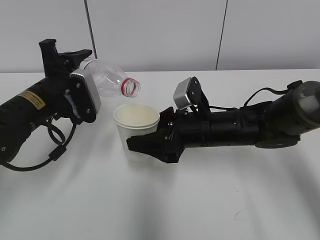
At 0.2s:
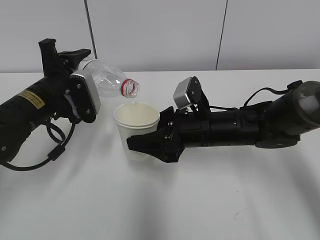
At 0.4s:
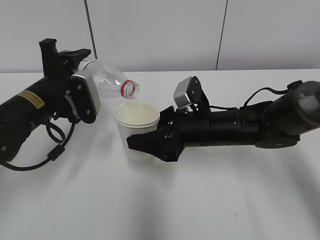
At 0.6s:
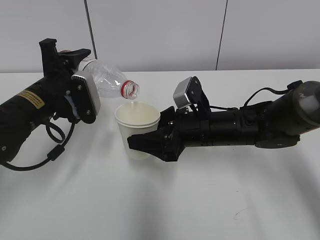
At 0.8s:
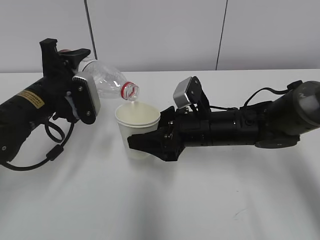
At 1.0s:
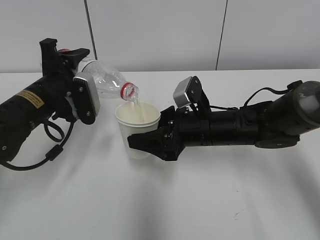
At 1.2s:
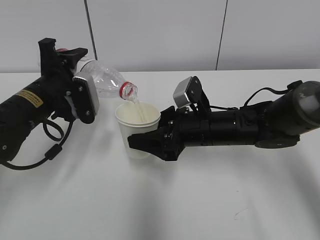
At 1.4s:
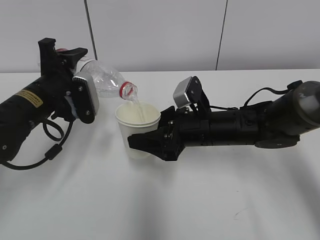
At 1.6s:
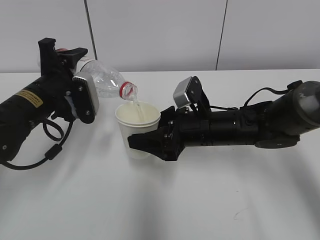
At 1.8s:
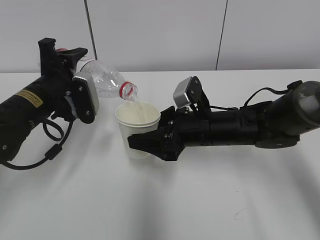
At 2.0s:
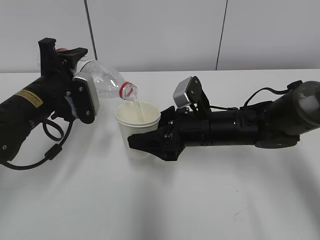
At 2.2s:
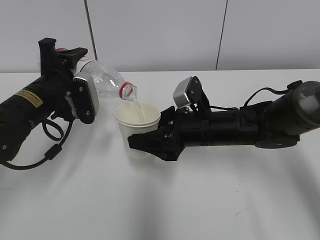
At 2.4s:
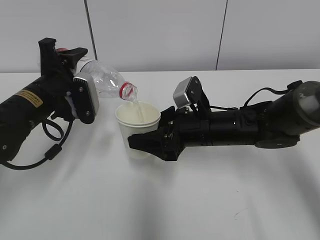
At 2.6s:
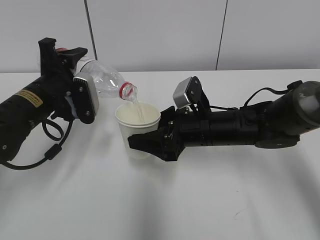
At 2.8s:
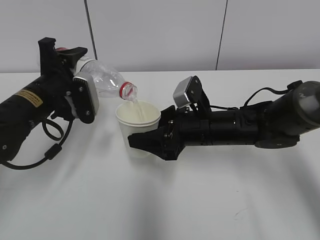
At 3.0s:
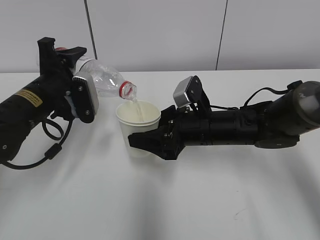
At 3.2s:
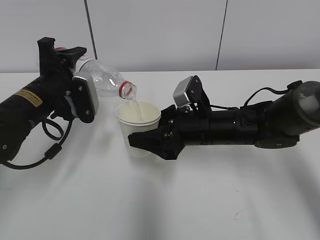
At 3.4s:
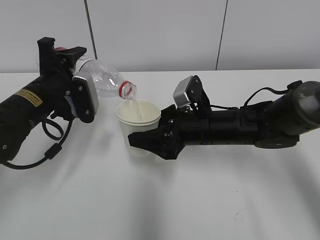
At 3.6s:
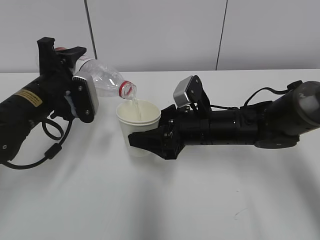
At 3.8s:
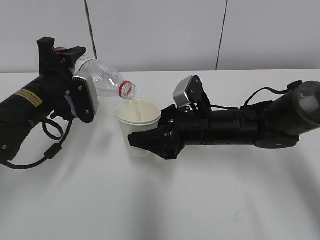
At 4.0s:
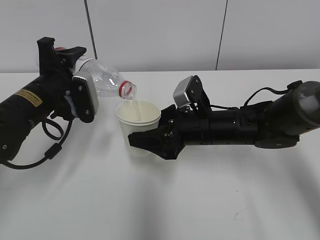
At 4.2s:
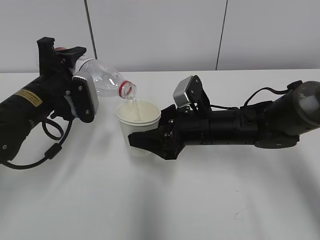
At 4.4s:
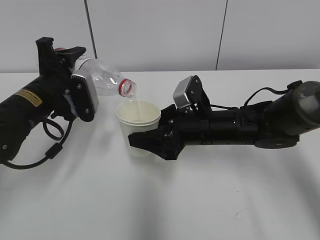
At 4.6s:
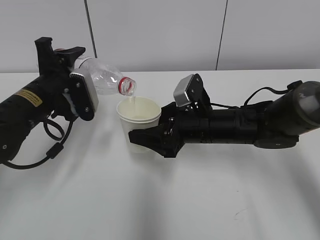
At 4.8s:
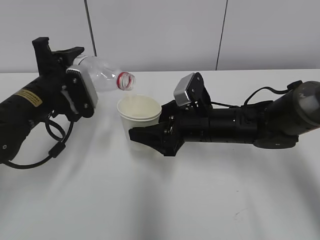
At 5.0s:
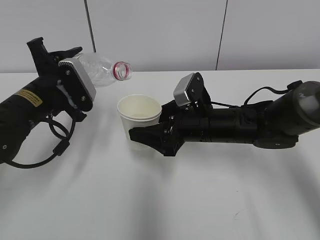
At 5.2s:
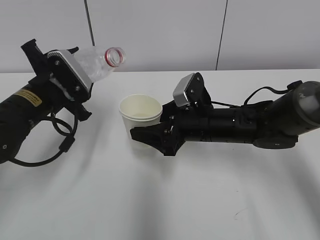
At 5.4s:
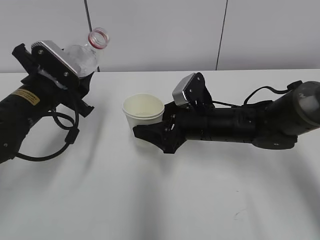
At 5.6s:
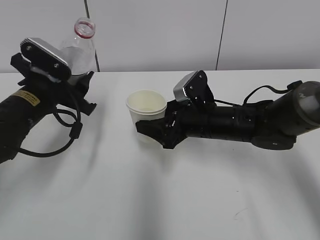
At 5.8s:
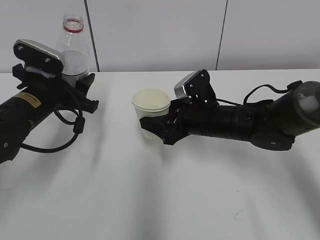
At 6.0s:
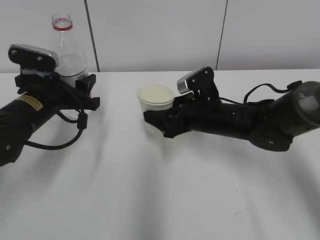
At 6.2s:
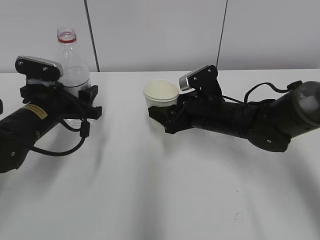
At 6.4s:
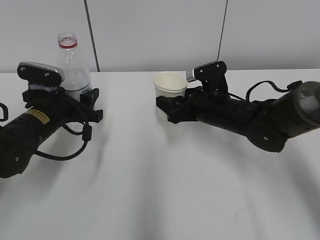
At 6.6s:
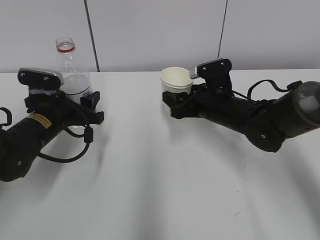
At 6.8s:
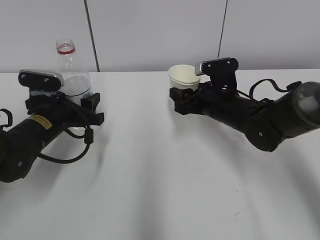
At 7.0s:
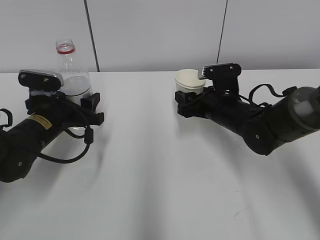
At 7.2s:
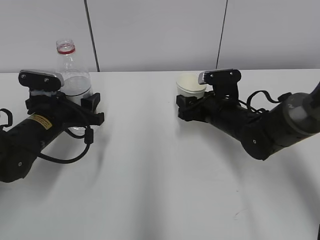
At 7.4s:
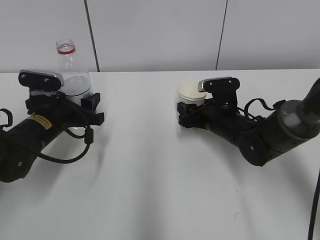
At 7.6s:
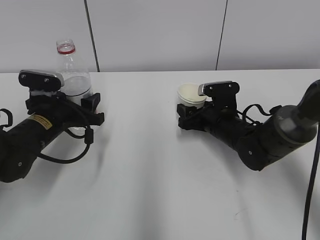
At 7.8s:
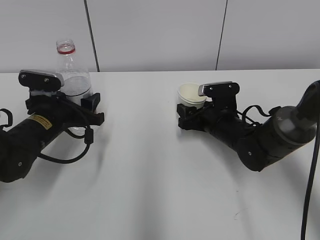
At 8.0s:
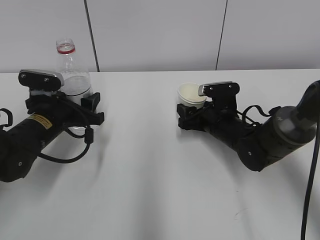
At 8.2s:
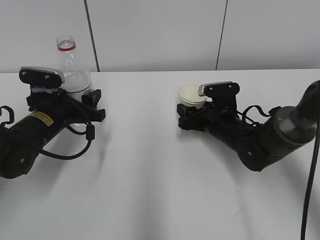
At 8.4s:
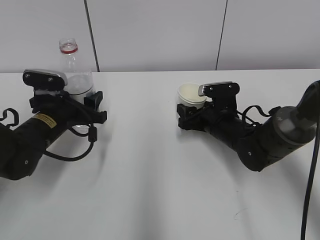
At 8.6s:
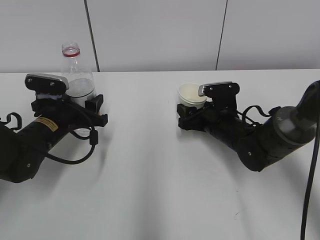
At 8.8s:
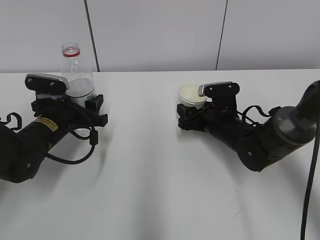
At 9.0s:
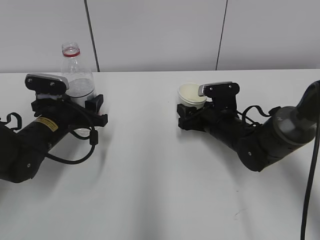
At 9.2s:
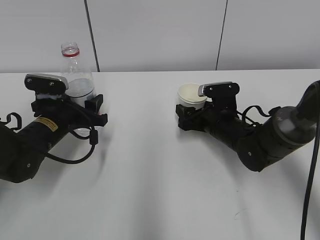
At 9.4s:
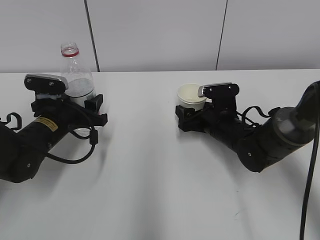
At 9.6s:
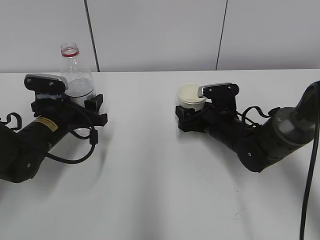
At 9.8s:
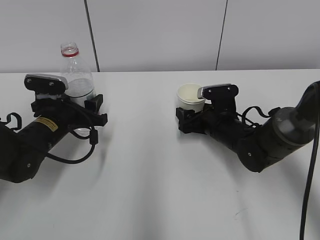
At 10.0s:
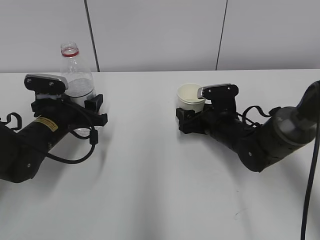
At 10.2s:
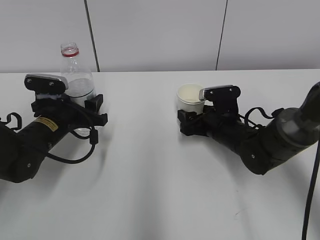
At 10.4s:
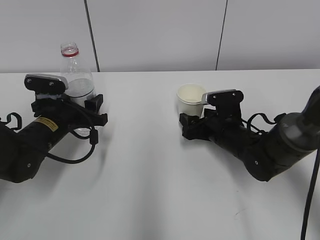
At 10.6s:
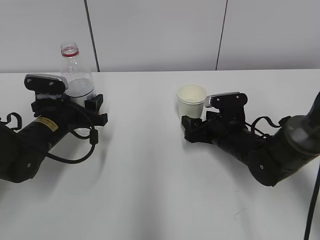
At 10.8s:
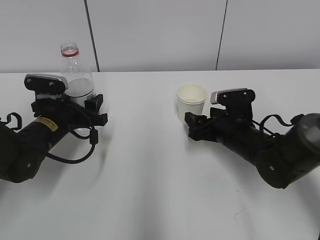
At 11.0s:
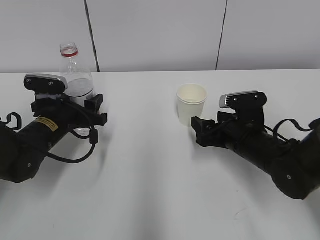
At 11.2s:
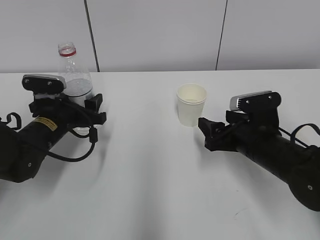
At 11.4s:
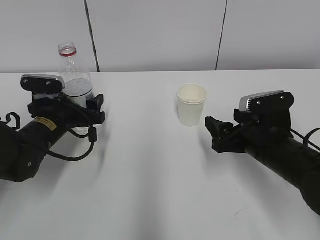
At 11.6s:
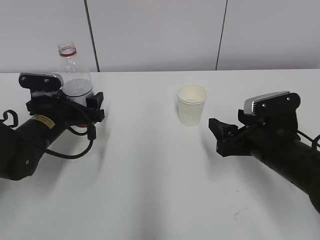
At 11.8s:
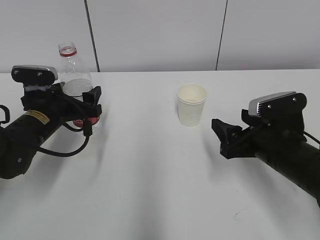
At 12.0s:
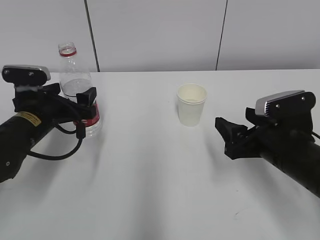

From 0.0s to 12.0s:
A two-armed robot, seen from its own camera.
Step, from 0.0s to 1.8s: Fill water with the right hand.
Step, from 0.0s to 1.8s: Pour water with the left hand.
Step, from 3.2s to 6.2s: Place the paper cup with the right hand.
From 0.0s to 1.6s: There are only small adjustments of the grippers.
From 1.6s to 4.4s: Both grippers stay about where they are.
From 6.0s to 7.6s: The right gripper goes some 5 cm downward.
From 7.6s to 9.0s: The grippers move only a little.
From 9.0s to 10.4s: The right gripper opens.
From 10.4s to 12.0s: The right gripper heads backward and upward, covering about 15 cm. Meanwhile the left gripper opens its fingers.

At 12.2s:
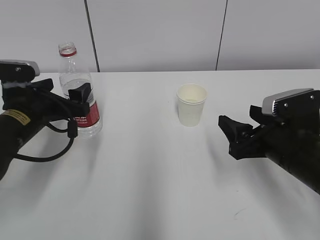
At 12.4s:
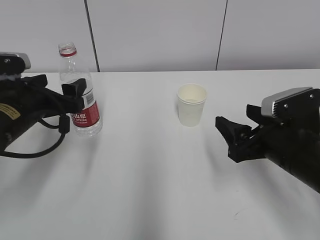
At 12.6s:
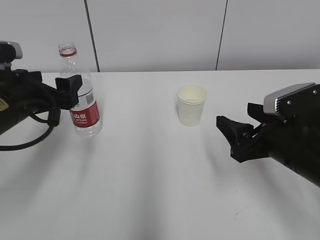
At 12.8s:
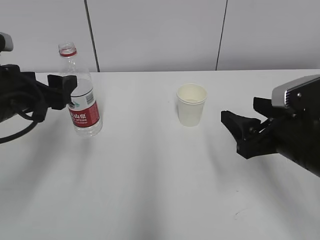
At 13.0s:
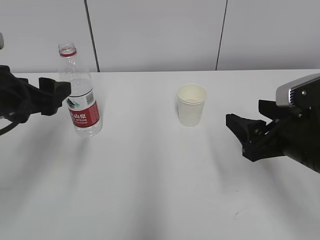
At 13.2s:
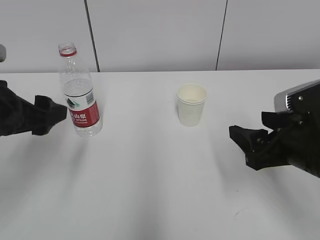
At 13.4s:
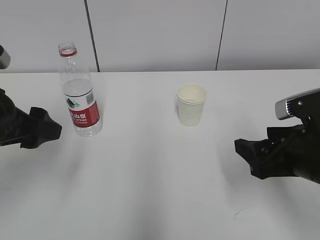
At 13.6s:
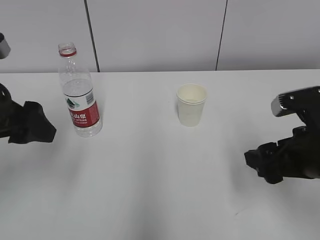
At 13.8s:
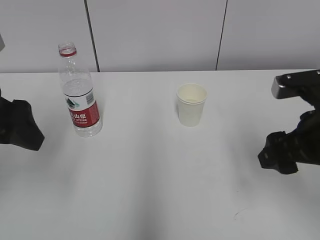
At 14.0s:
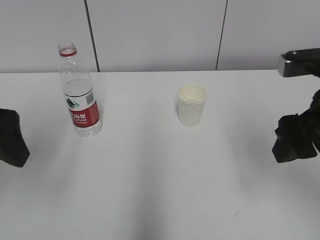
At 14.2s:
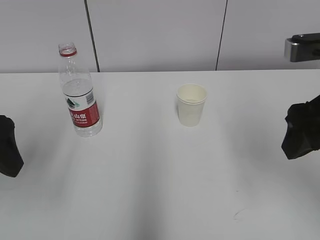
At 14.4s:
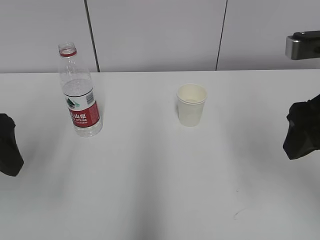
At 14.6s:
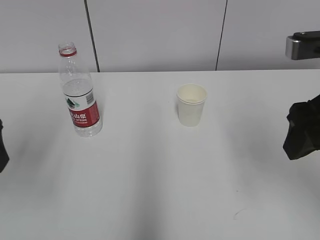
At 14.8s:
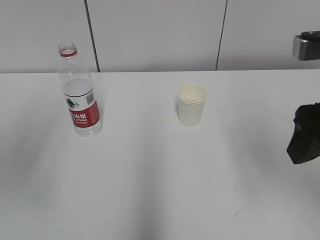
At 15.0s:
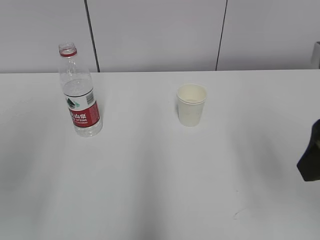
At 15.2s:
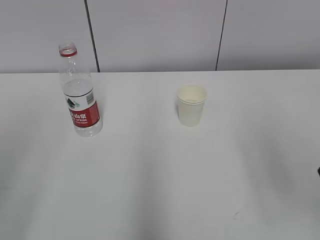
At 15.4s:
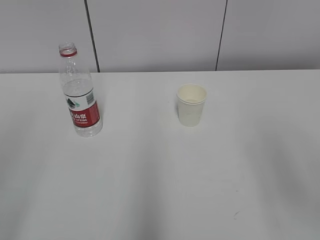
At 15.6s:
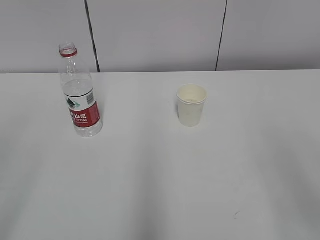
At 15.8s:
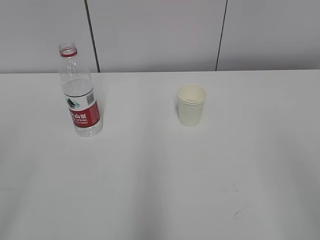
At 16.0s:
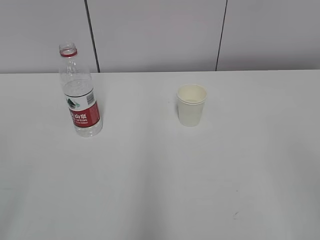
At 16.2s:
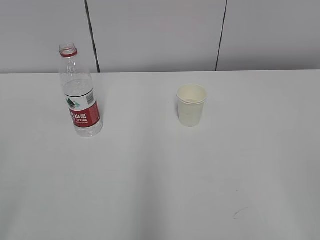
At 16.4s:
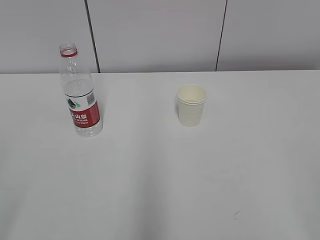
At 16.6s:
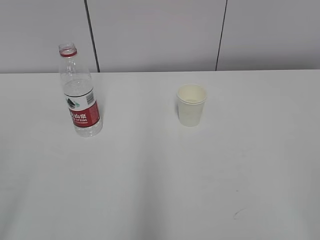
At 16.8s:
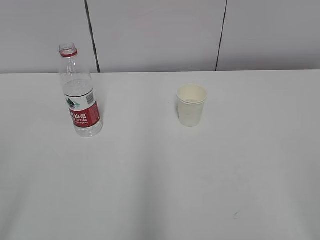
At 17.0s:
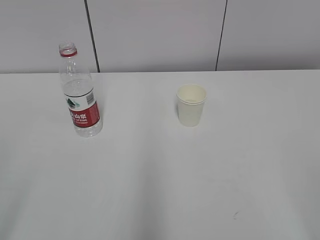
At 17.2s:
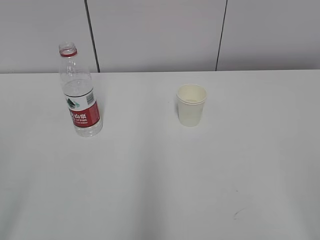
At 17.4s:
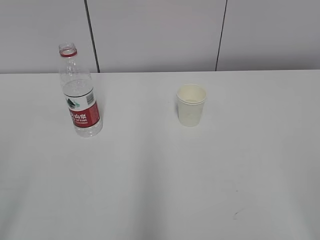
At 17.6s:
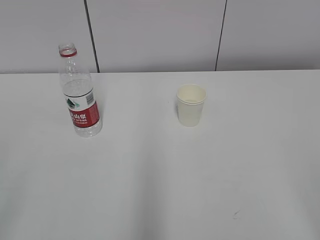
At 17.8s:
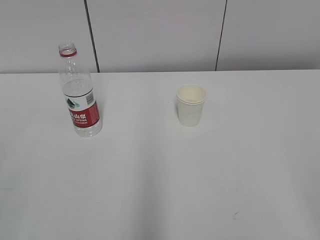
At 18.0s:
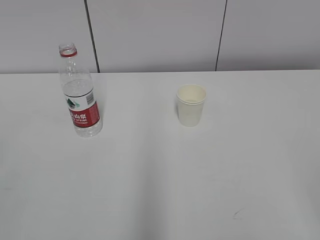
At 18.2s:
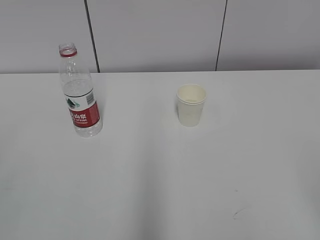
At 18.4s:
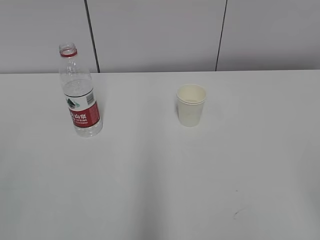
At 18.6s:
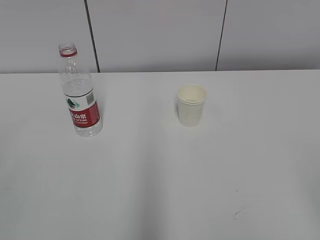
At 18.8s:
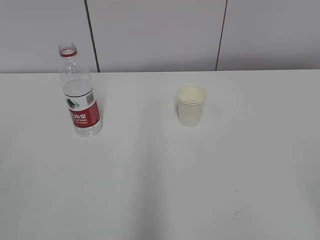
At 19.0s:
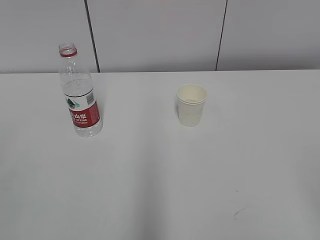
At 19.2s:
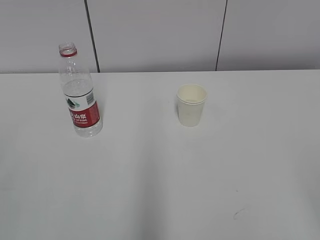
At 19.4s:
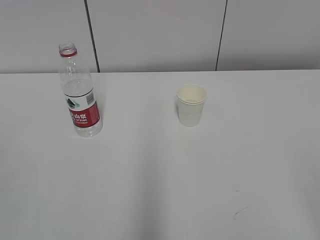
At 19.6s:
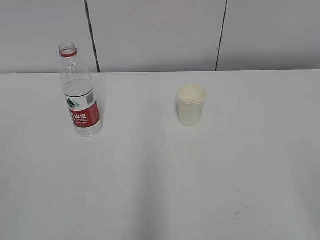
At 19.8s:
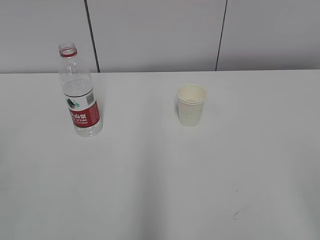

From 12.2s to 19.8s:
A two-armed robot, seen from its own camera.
From 12.2s to 13.8s: The right gripper shifts approximately 10 cm upward, while the left gripper travels upward and backward by some 15 cm.
From 13.8s to 15.2s: The right gripper heads upward and backward, covering approximately 10 cm. The left gripper shifts some 15 cm backward and upward.
From 15.2s to 16.8s: The right gripper heads backward and to the right, covering some 15 cm.

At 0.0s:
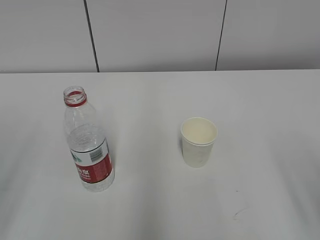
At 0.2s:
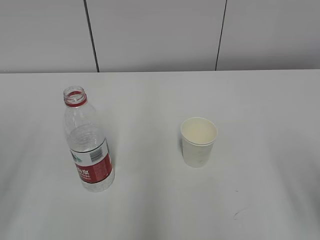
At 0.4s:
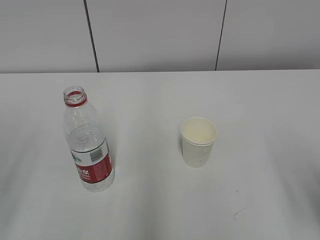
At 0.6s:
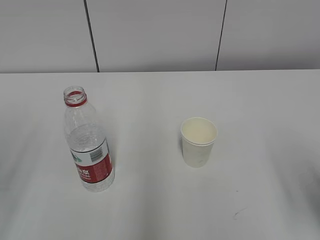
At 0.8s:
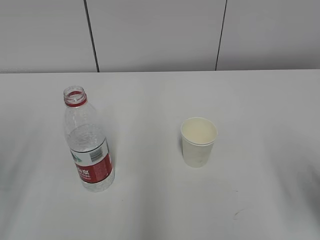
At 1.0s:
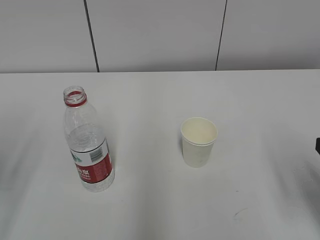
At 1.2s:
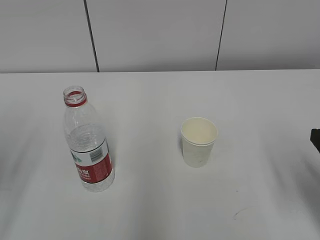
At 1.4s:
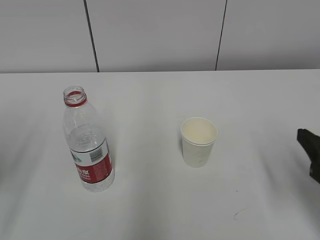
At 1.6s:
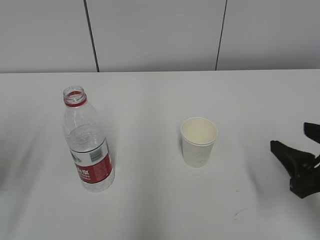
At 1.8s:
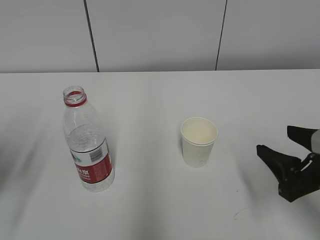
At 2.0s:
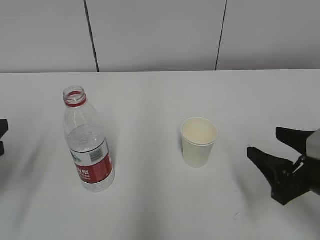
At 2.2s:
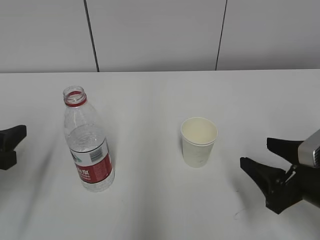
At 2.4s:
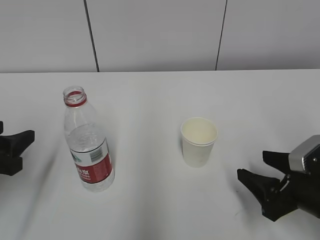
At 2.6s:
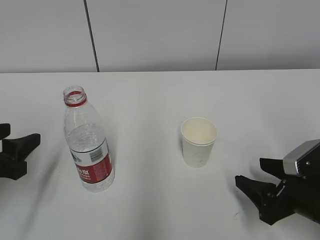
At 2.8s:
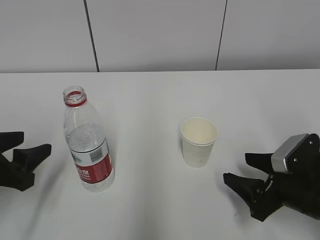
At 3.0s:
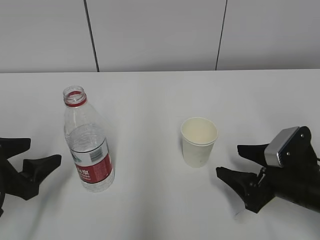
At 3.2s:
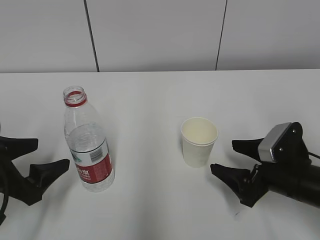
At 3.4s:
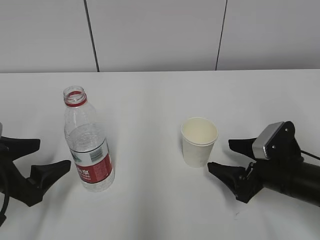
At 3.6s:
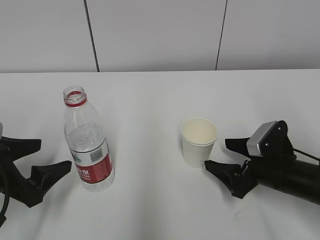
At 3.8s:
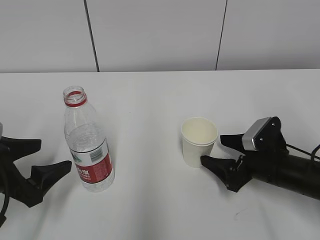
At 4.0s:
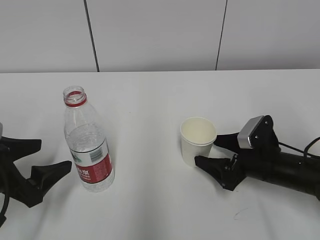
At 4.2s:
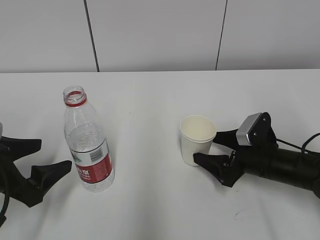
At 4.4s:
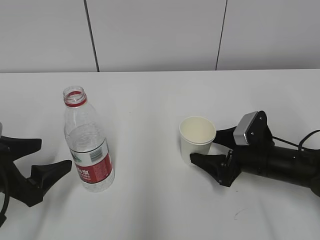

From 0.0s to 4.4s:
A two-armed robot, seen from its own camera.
From 0.0s to 1.4s: The right gripper goes about 10 cm forward and downward.
From 1.4s to 3.0s: The right gripper moves downward and forward, approximately 10 cm. Meanwhile the left gripper travels downward by some 10 cm.
From 3.0s to 4.4s: The right gripper moves forward, roughly 10 cm.
